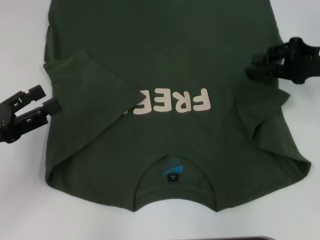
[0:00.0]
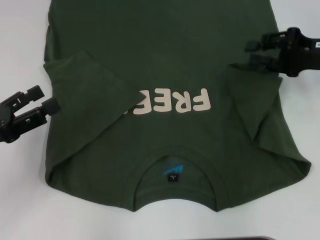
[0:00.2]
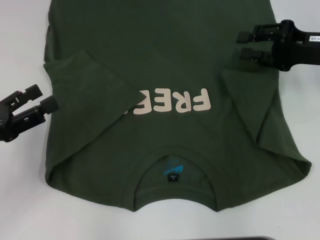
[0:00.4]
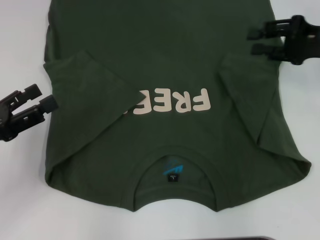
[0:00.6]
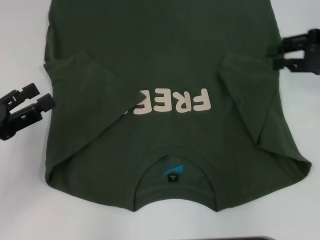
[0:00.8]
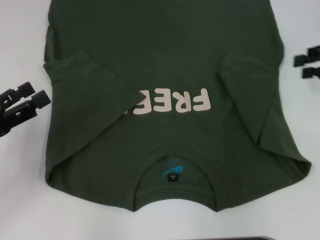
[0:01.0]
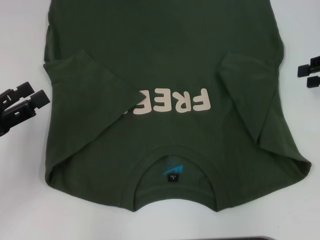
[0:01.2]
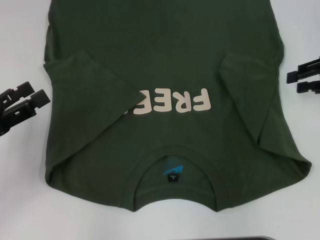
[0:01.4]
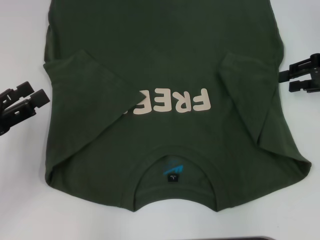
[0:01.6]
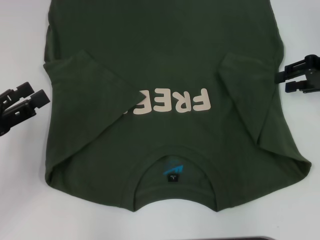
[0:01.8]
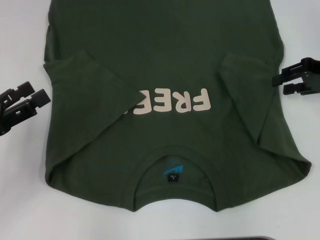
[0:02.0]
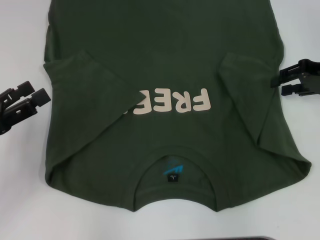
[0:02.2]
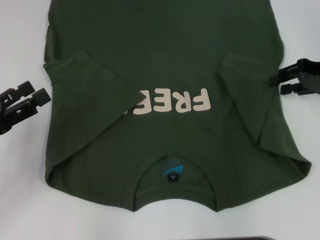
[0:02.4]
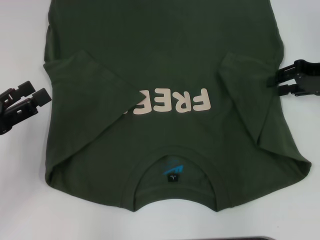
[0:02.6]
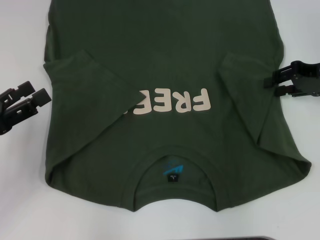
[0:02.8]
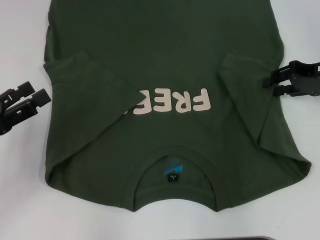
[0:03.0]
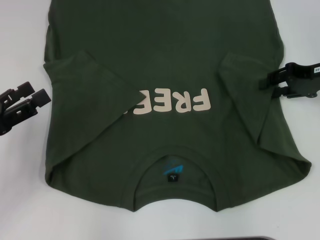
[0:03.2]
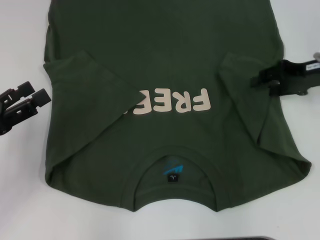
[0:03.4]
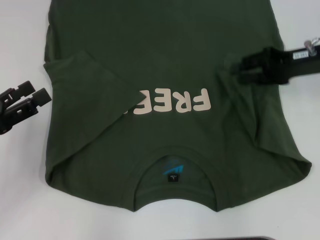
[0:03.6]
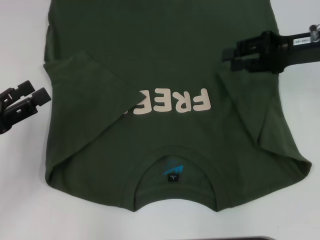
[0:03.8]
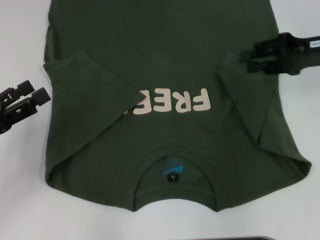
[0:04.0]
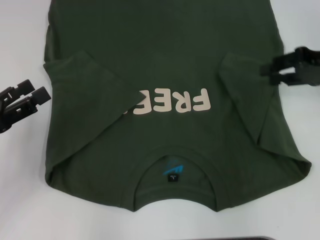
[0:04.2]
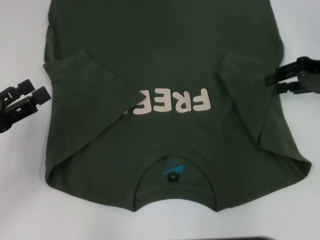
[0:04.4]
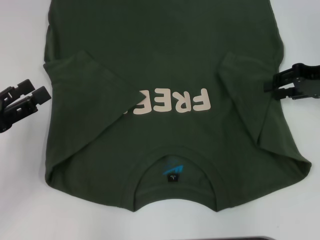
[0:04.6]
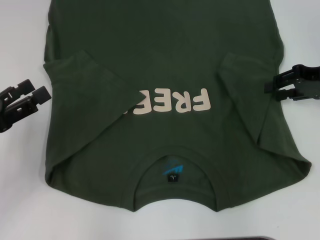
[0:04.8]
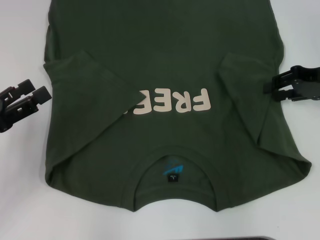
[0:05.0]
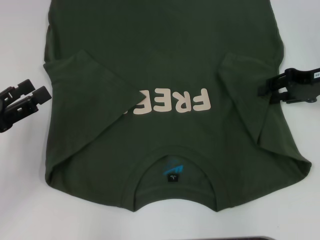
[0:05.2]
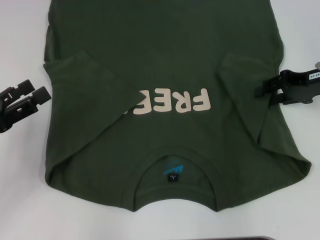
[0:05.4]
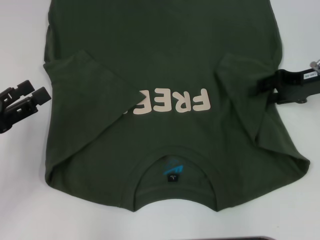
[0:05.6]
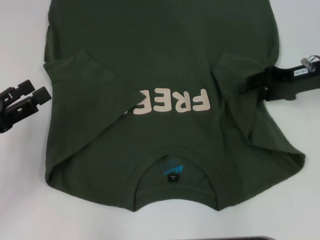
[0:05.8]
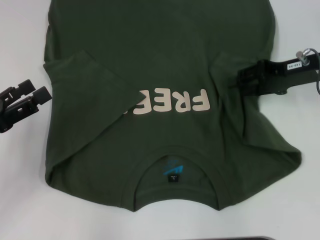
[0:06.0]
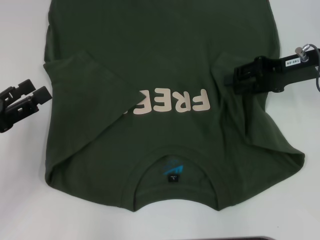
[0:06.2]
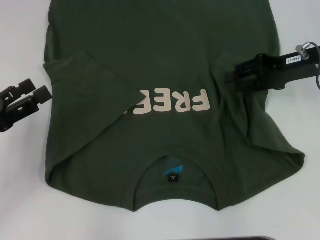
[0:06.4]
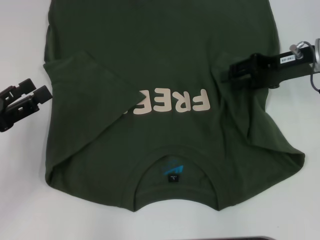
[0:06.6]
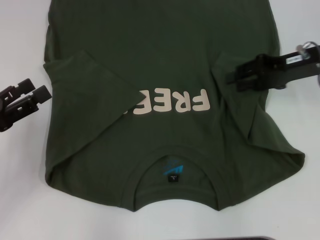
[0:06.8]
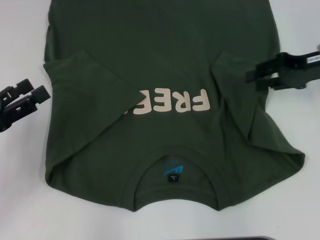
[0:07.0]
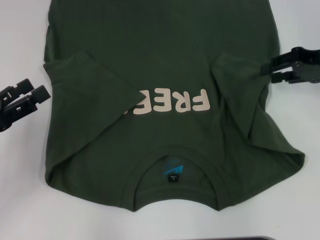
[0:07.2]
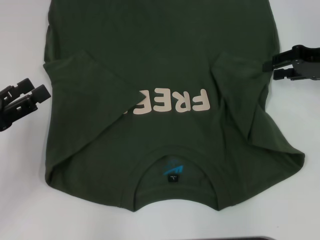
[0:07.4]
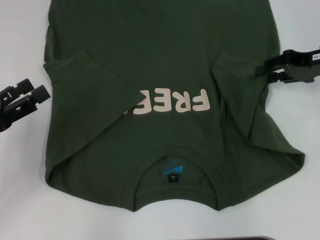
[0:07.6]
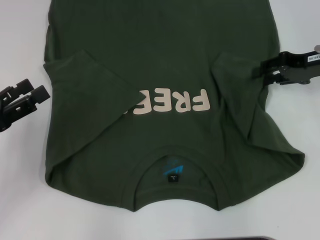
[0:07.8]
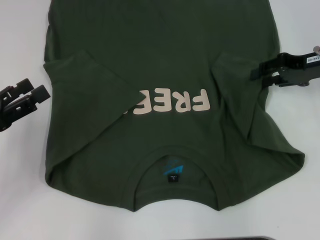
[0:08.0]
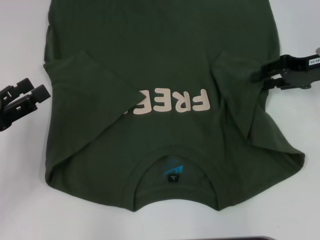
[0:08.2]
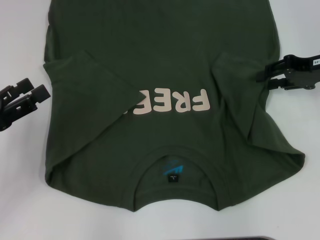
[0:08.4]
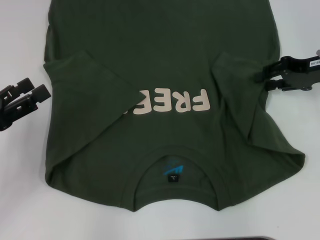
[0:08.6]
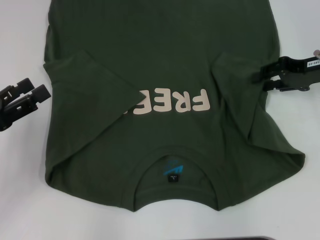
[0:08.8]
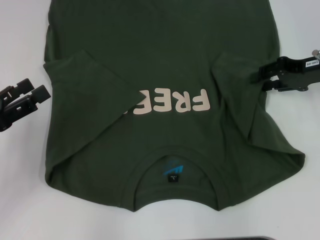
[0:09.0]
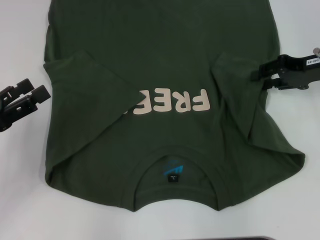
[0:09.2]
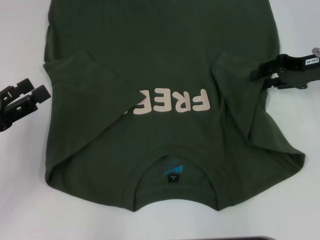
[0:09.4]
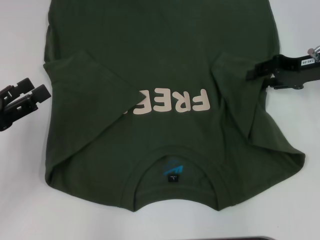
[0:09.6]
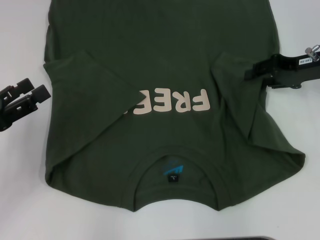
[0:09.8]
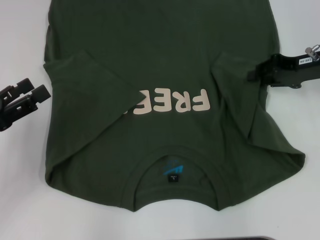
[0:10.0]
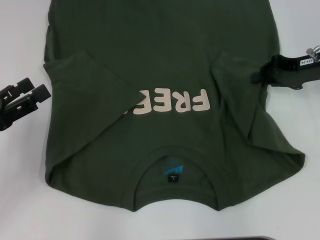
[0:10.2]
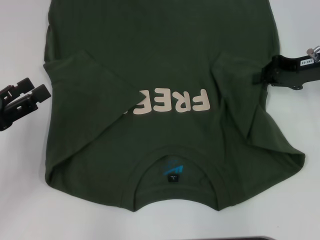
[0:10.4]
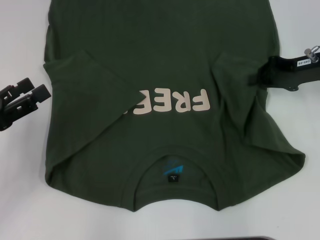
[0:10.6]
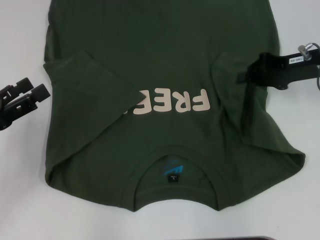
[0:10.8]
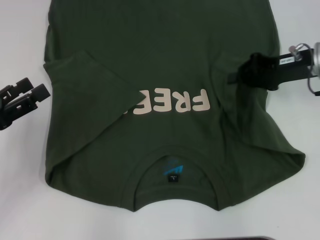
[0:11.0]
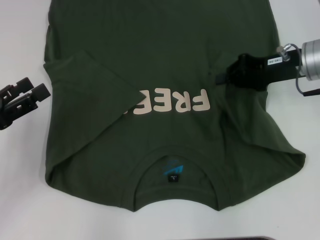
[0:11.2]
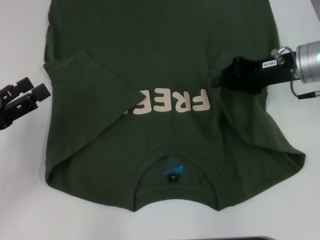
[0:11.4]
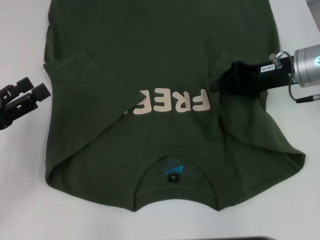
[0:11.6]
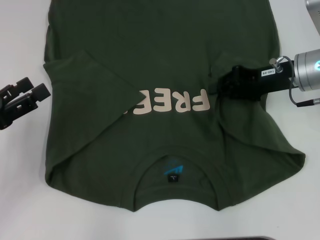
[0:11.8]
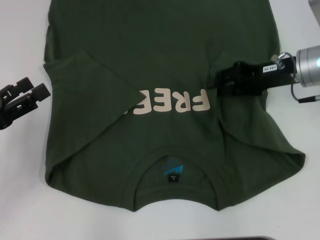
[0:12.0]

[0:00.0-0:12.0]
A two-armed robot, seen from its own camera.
0:00.0 to 0:01.6: The right gripper opens.
0:01.6 to 0:03.0: The grippers make only small movements.
0:04.4 to 0:06.0: The right gripper moves to the left, roughly 5 cm.
0:06.0 to 0:07.6: The grippers make only small movements.
0:07.6 to 0:09.0: Both grippers stay put.
0:09.0 to 0:10.4: The right gripper closes its fingers.
0:10.4 to 0:12.0: The right gripper travels to the left by roughly 5 cm.

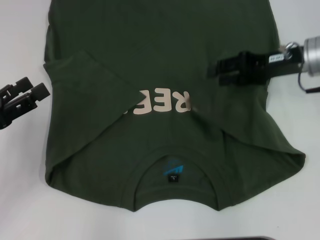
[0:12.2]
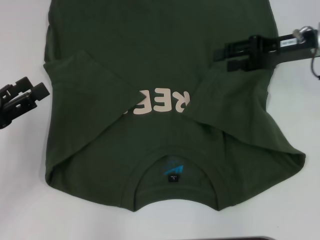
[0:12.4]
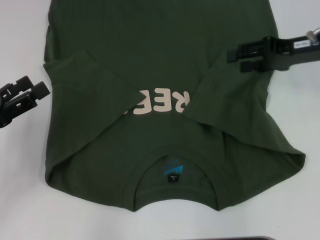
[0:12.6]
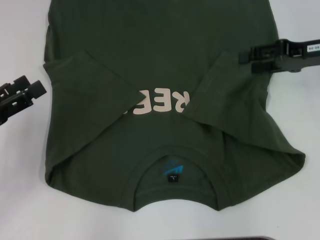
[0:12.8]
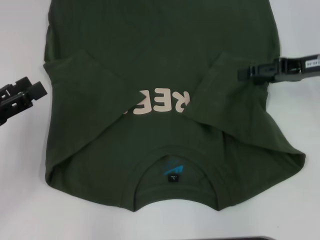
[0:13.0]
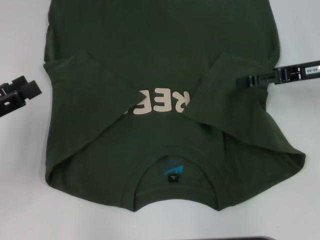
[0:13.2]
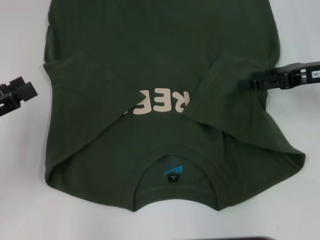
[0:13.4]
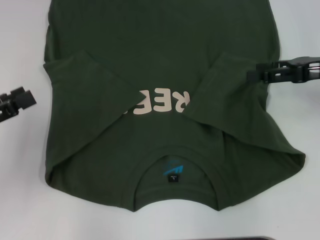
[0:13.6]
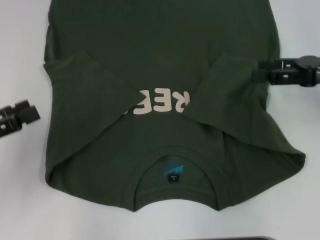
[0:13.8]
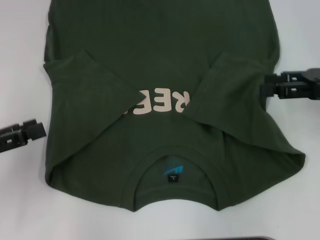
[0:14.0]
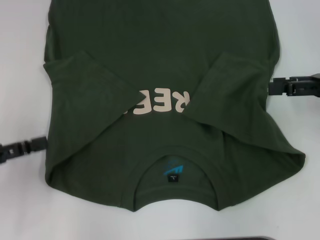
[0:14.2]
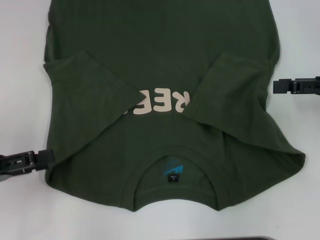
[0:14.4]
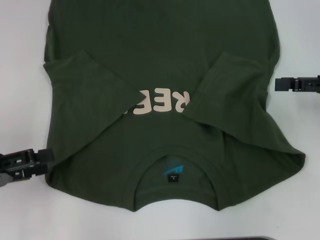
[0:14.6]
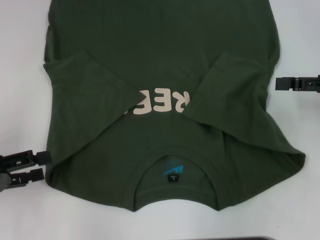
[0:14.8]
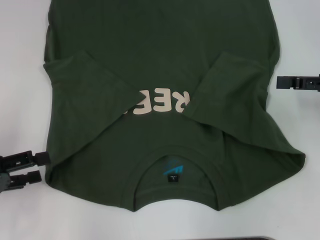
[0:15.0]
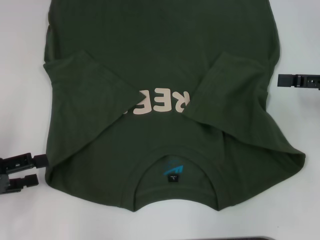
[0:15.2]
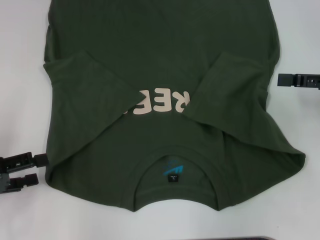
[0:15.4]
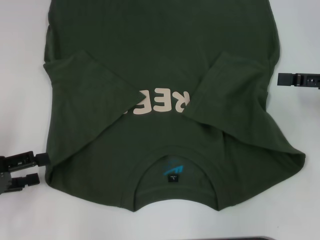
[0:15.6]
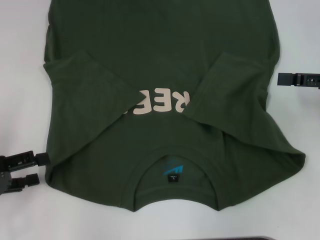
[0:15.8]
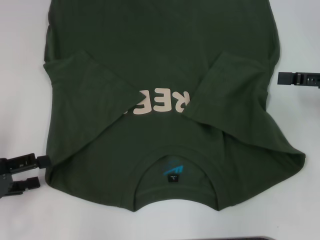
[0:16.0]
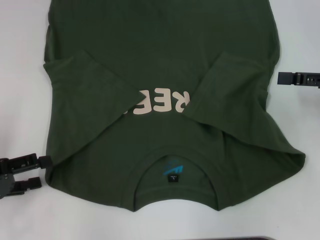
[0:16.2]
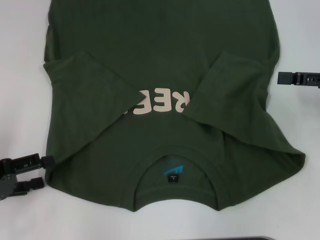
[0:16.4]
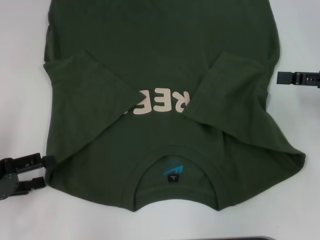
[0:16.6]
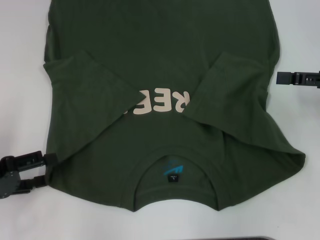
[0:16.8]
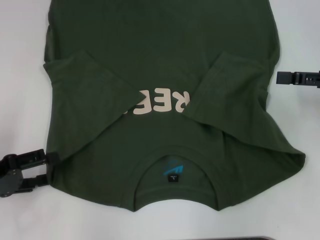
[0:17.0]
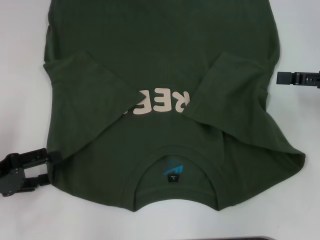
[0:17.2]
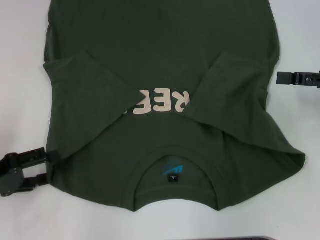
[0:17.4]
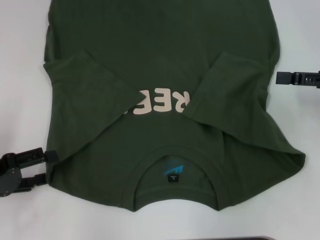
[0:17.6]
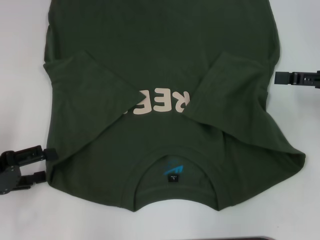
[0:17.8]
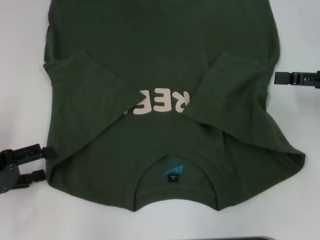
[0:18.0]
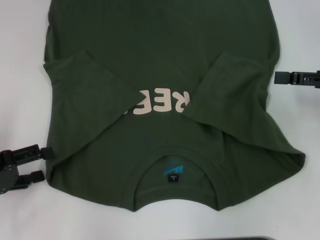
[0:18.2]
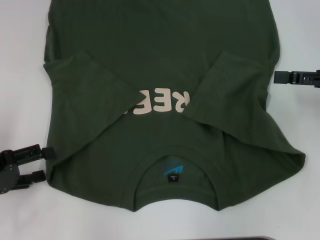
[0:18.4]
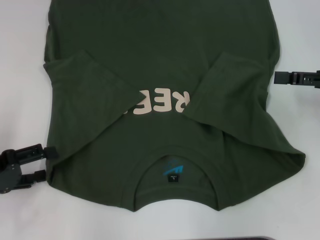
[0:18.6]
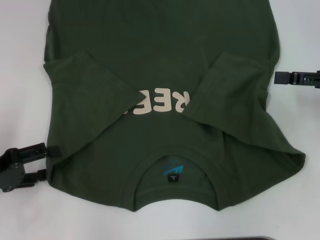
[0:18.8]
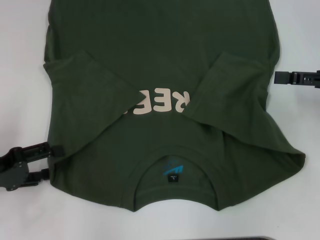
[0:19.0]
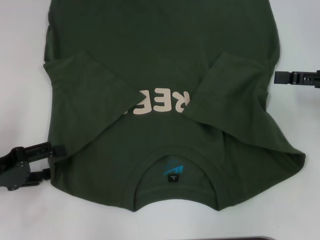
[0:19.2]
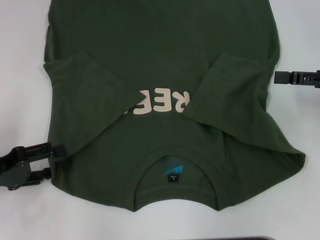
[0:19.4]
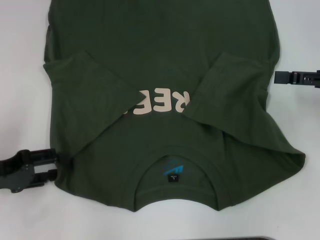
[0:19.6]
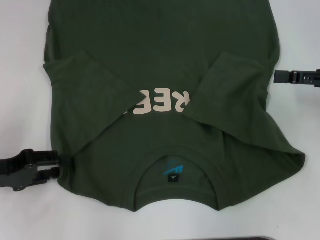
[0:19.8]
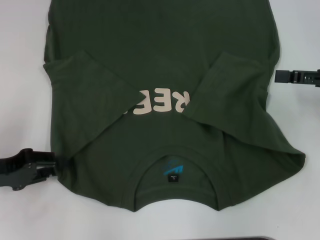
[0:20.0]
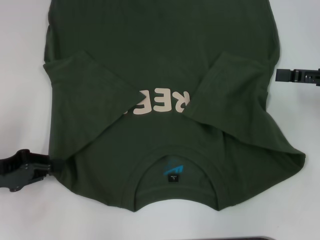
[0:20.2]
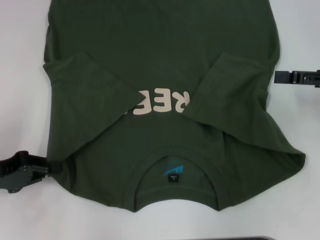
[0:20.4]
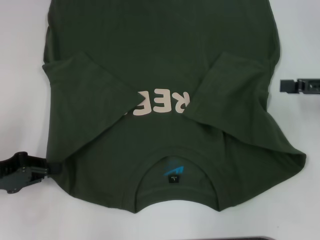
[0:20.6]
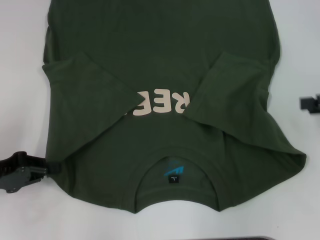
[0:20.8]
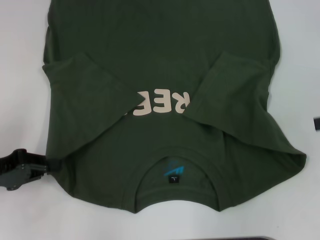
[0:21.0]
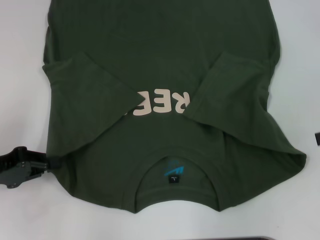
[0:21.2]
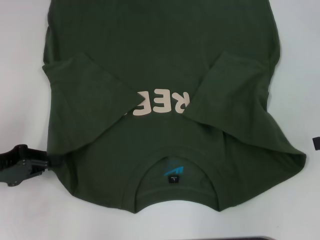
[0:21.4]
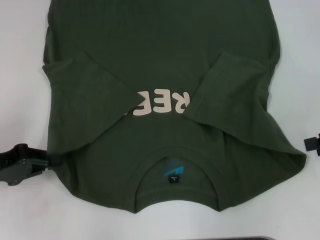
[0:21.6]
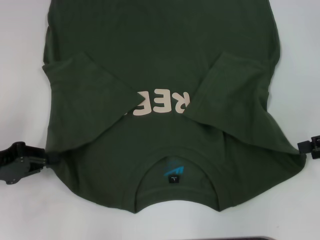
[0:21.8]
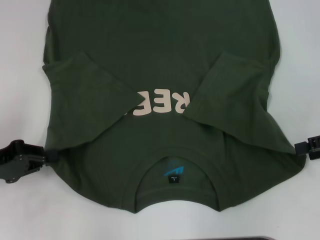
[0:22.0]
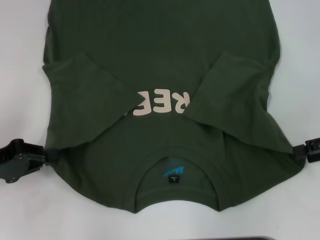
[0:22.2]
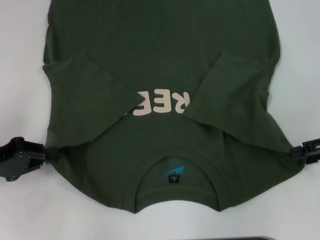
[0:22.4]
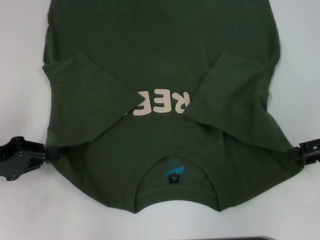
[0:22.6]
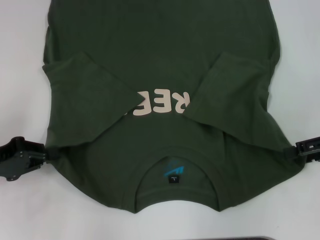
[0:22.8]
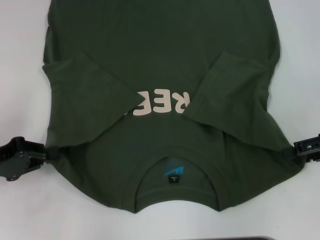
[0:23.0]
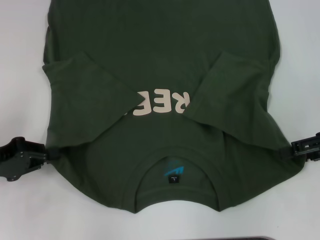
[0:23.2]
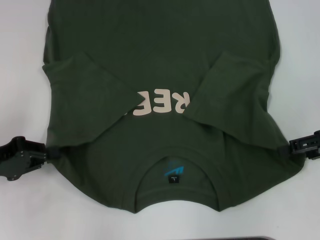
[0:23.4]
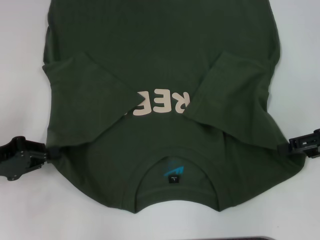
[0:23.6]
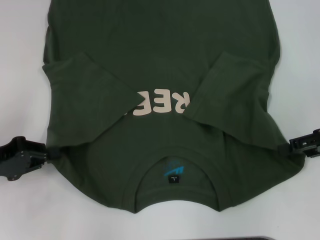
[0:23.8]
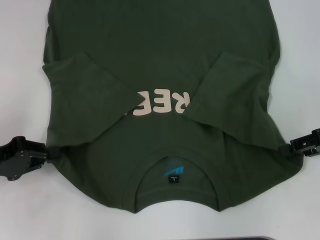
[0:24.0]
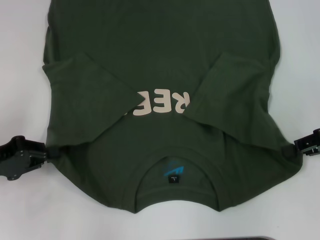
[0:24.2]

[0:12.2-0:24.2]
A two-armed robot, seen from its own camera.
Step, 0:12.6 to 0:20.4: Grab the bottom left corner with your left hand.
0:12.2 to 0:13.8: The right gripper moves to the right and backward, approximately 10 cm, and opens its fingers.
0:15.2 to 0:16.6: The grippers make only small movements.
0:16.6 to 0:18.2: Neither gripper changes place.
0:18.2 to 0:19.8: The grippers stay close to where they were, moving slightly.
0:19.8 to 0:21.2: The left gripper closes its fingers. Meanwhile the right gripper ends up roughly 5 cm from where it was.
0:21.2 to 0:22.6: The right gripper changes place by roughly 5 cm.
0:22.6 to 0:24.2: The grippers make only small movements.
